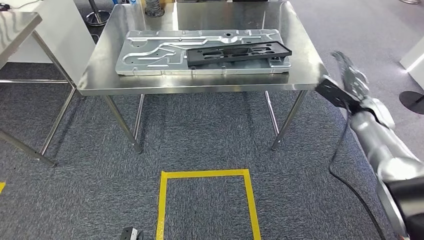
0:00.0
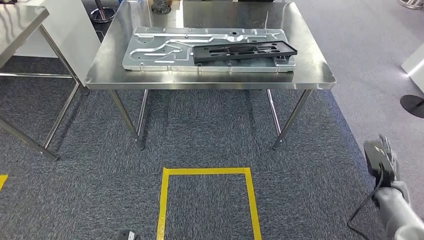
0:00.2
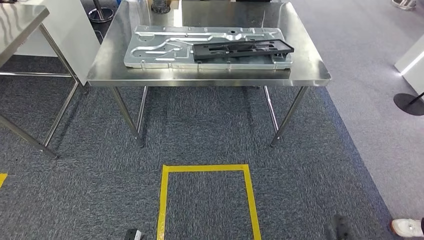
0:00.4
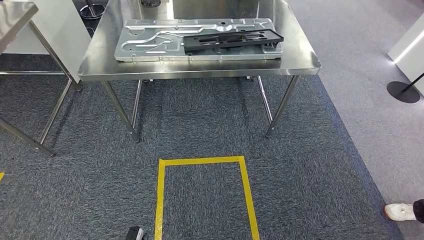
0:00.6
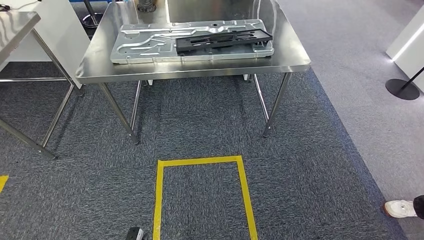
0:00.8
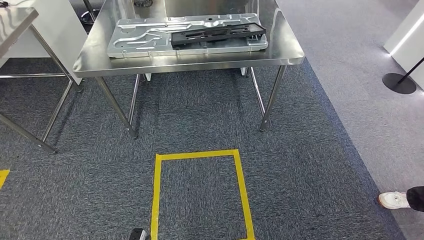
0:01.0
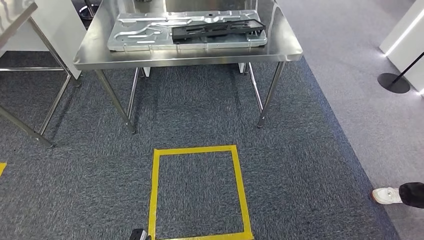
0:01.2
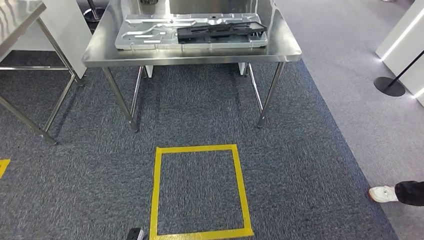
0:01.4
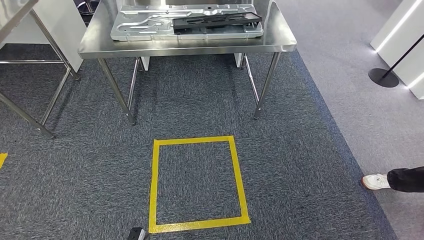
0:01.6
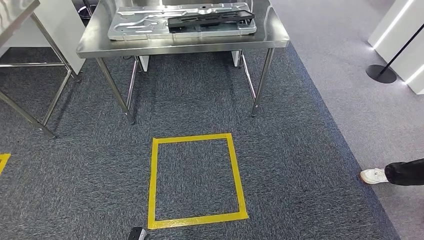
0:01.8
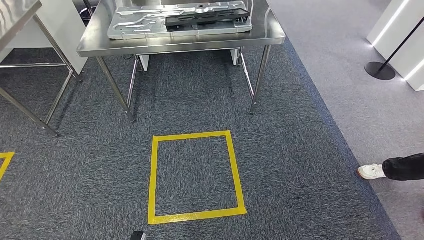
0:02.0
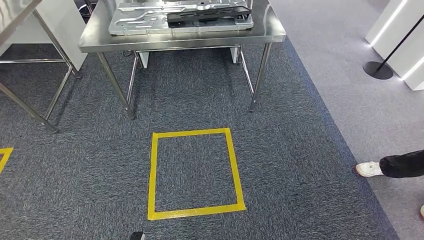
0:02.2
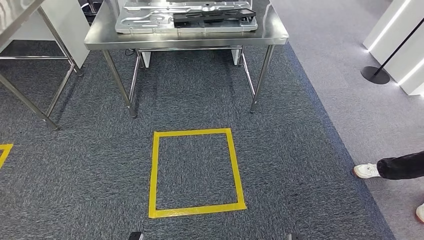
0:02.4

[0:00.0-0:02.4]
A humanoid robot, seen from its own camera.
Step, 0:00.0 to 0:02.4: Move to the initial position of the shelf.
